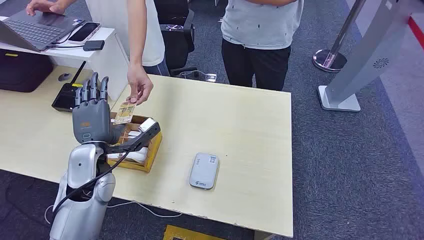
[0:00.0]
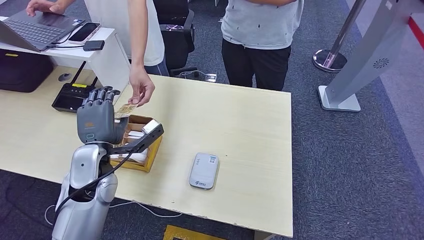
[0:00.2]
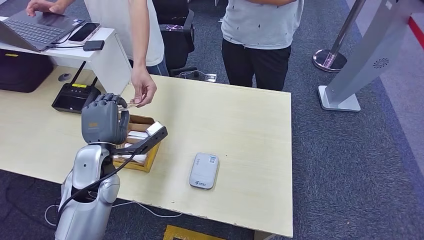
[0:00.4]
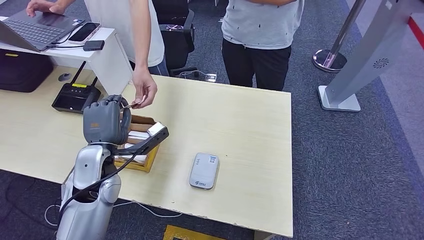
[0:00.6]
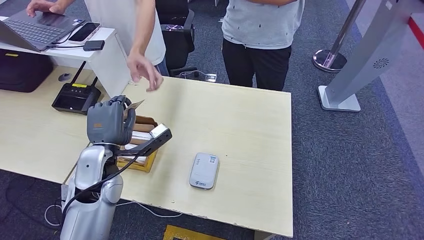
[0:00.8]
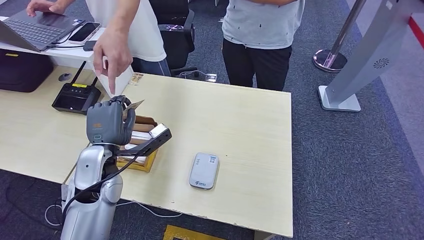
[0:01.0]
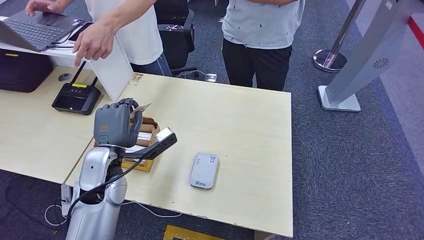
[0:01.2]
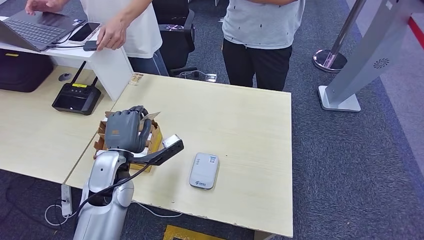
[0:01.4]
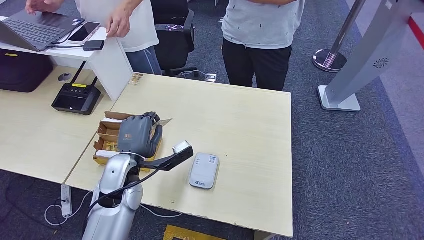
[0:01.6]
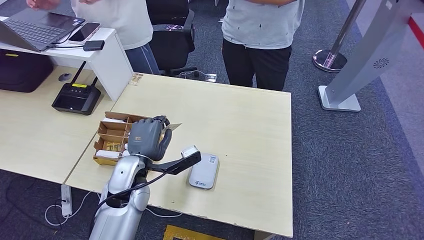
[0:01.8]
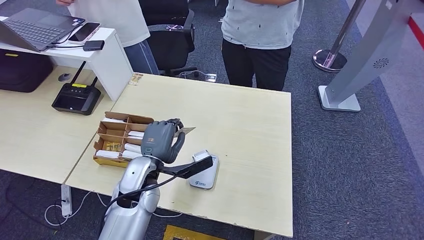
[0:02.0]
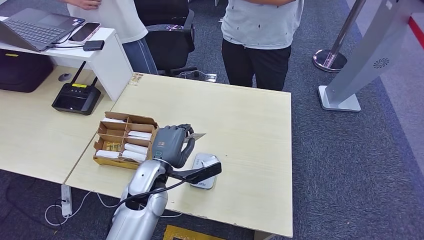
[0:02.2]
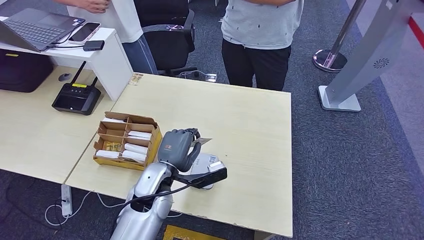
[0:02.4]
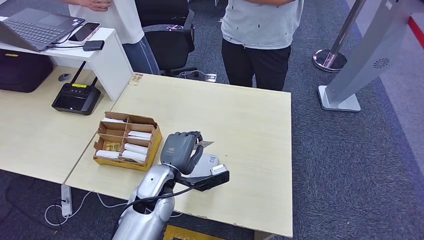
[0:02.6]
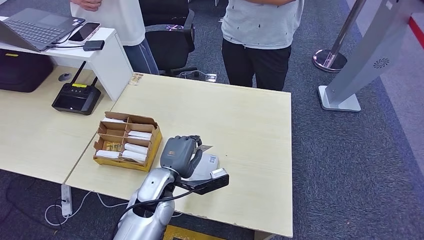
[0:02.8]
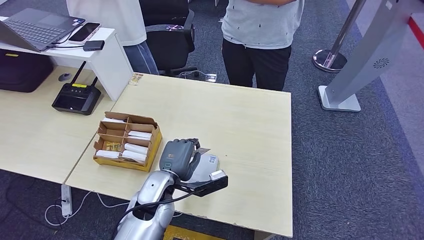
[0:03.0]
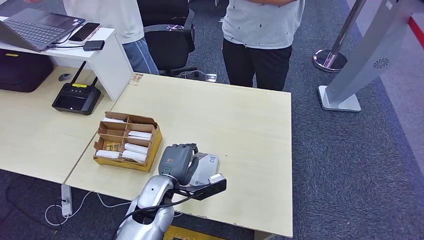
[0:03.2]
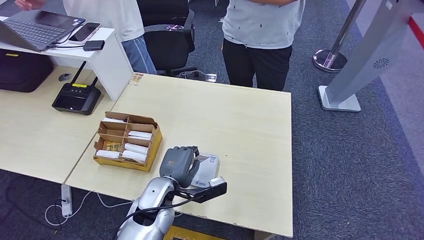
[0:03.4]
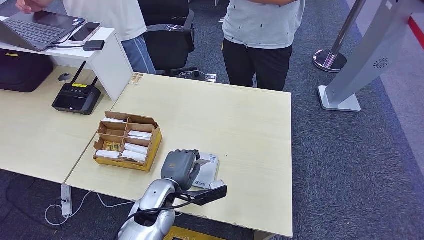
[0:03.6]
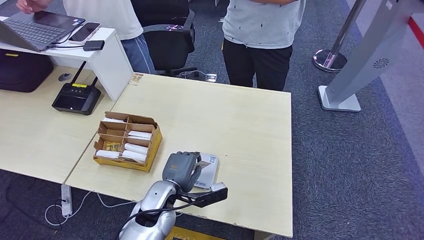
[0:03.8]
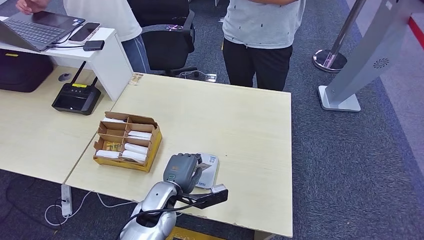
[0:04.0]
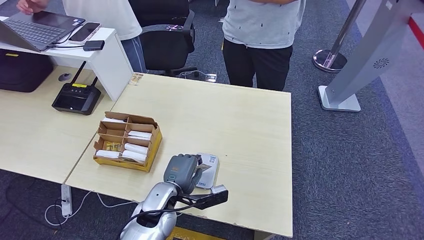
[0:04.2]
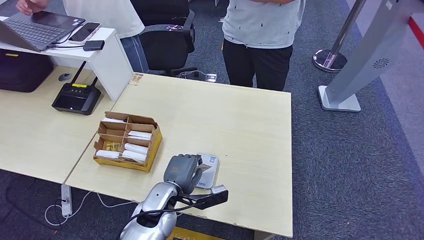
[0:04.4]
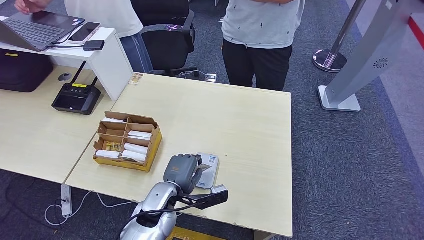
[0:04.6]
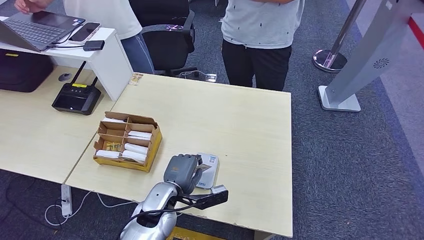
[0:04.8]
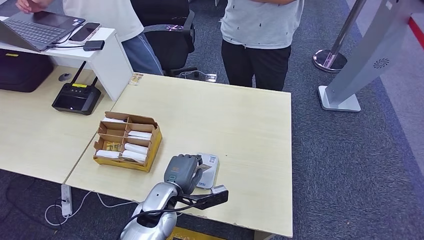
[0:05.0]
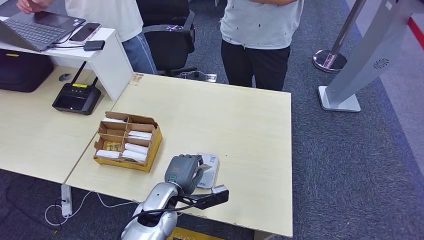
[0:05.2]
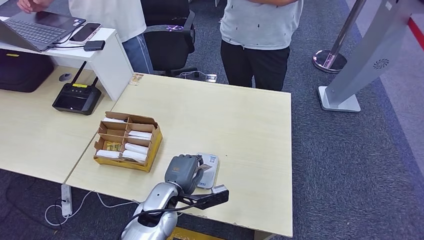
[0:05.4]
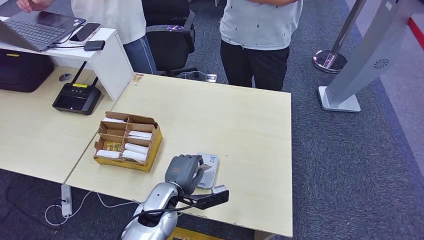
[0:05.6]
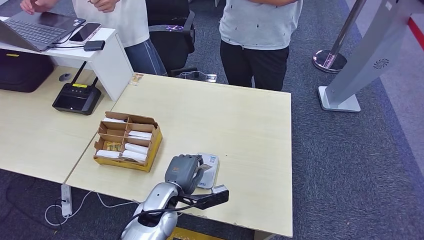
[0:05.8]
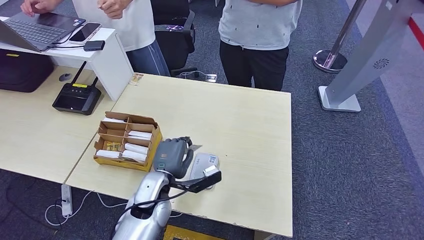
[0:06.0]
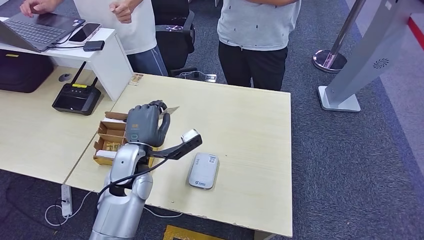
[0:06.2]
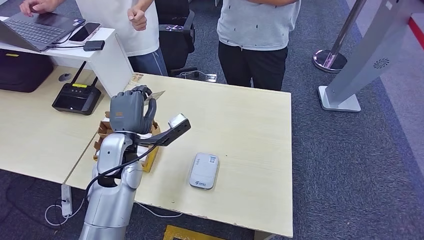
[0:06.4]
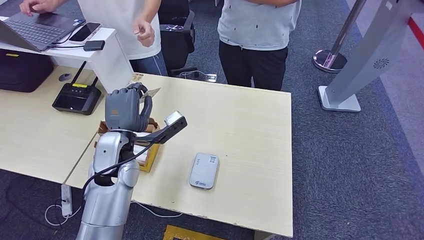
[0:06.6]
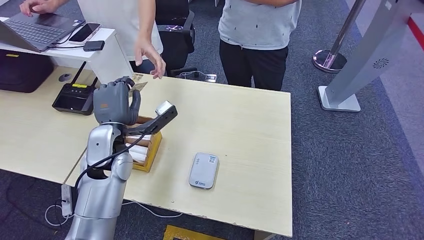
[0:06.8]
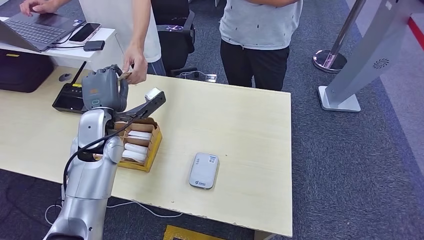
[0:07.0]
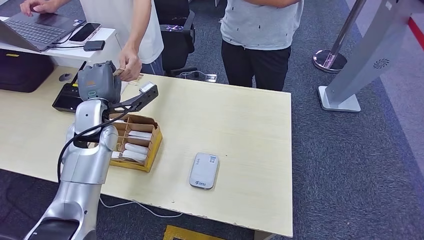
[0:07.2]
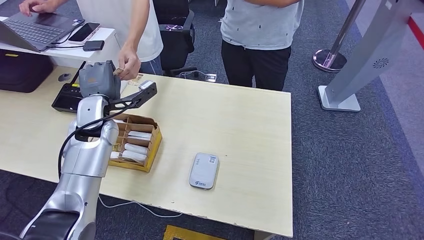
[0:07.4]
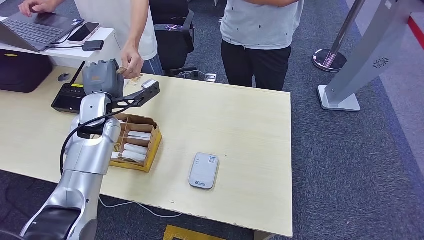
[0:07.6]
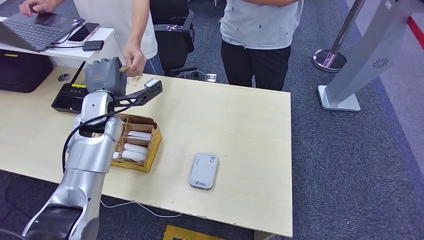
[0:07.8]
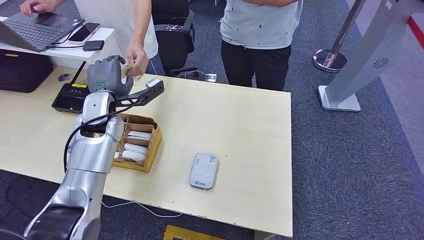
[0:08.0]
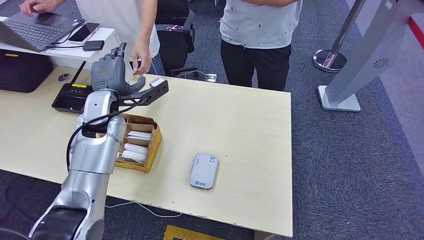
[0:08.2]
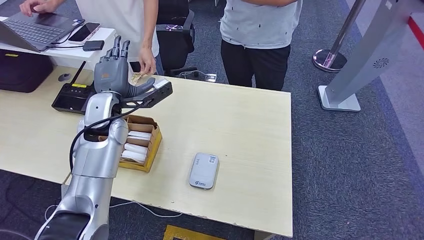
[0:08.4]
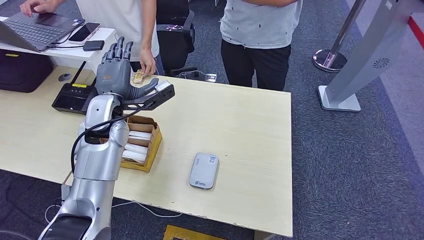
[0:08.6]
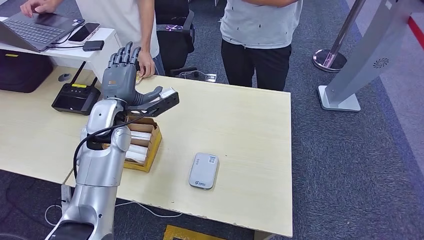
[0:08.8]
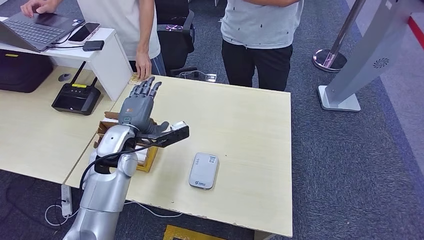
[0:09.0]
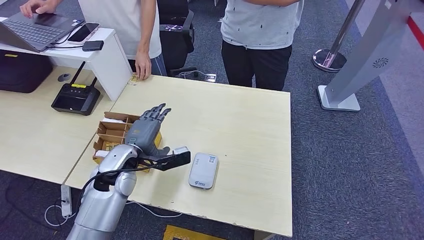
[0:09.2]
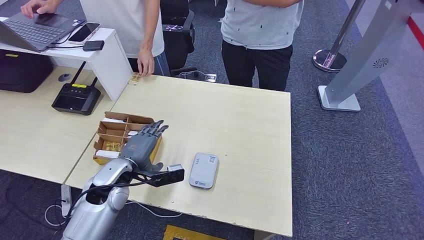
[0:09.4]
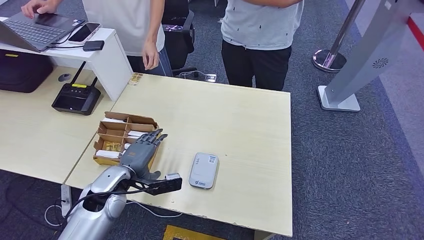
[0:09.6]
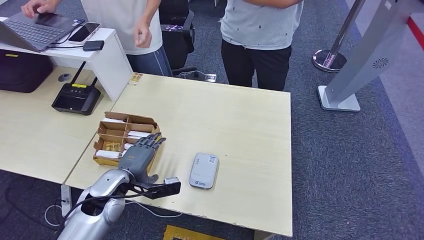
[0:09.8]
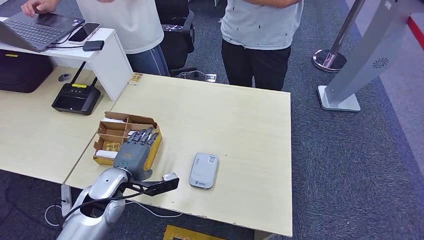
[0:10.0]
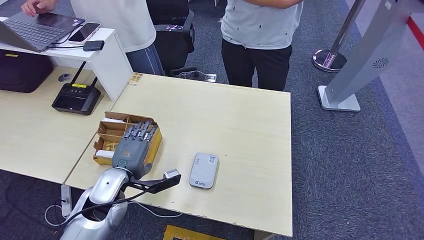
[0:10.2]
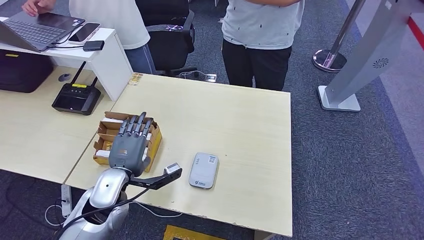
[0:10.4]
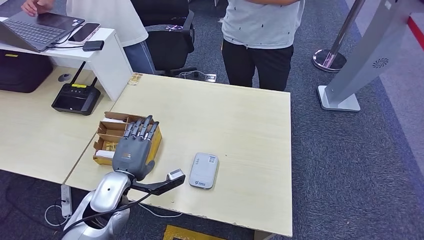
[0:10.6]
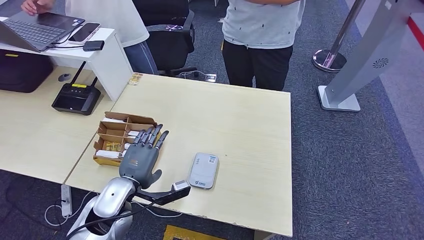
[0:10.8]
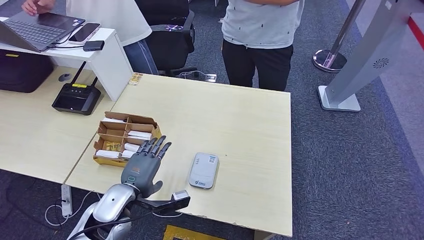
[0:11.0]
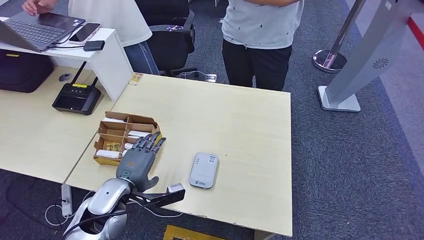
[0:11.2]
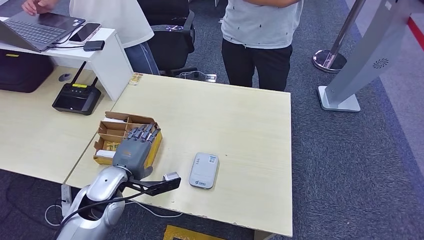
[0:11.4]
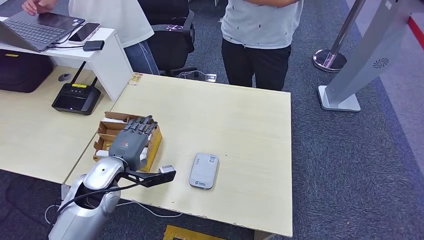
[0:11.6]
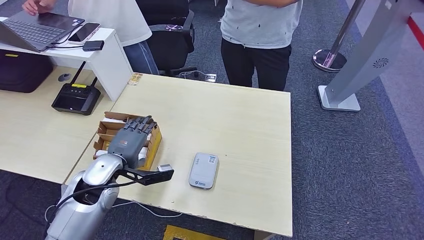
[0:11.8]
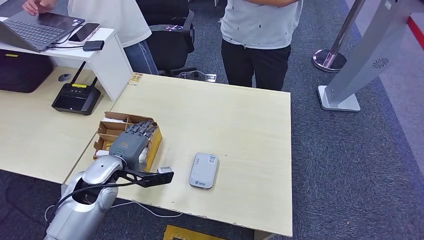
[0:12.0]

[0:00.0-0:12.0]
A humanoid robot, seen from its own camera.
Step, 0:00.0 to 0:00.6: Take the ID card from the person's hand.
Step, 0:00.8 to 0:03.8: Place the ID card on the card reader.
Step, 0:05.0 to 0:08.0: Hand the ID card to the person.
0:01.6 to 0:03.0: The left hand goes about 10 cm to the right.
0:03.0 to 0:06.0: The hands move only a little.
0:06.0 to 0:07.6: The left hand goes approximately 25 cm to the left, upward and forward.
0:07.6 to 0:09.0: The left hand shifts roughly 10 cm to the right and backward.
0:09.0 to 0:10.4: The left hand is displaced backward and downward by about 10 cm.
0:10.4 to 0:12.0: The left hand changes place by roughly 5 cm.

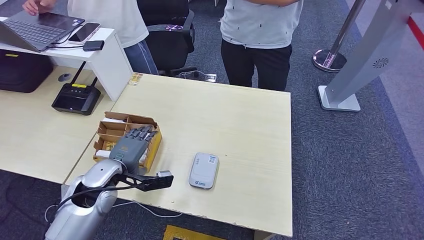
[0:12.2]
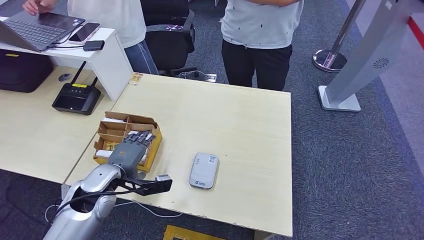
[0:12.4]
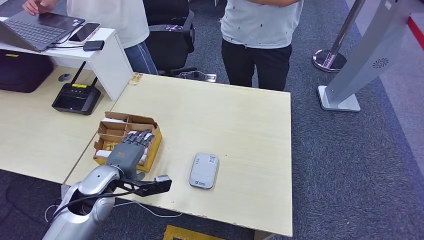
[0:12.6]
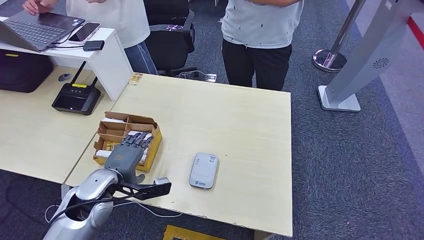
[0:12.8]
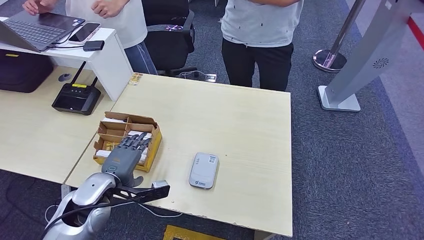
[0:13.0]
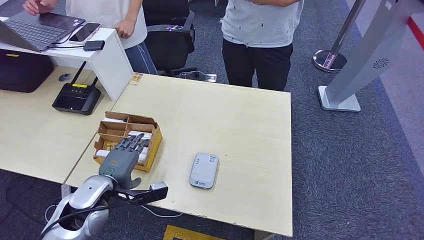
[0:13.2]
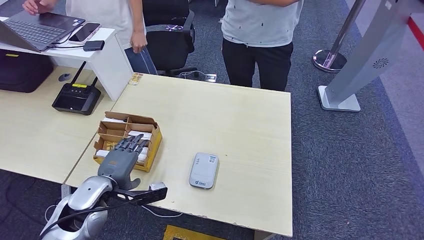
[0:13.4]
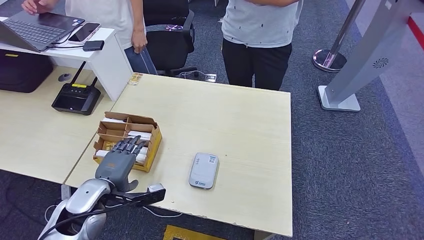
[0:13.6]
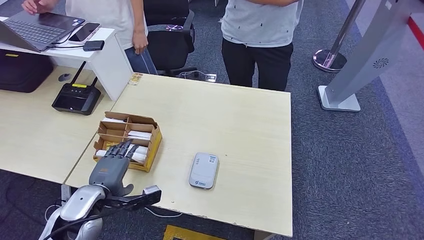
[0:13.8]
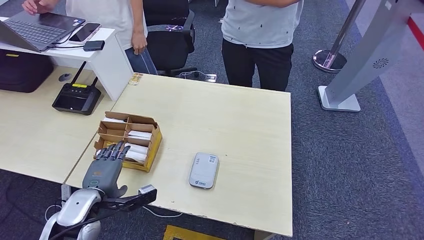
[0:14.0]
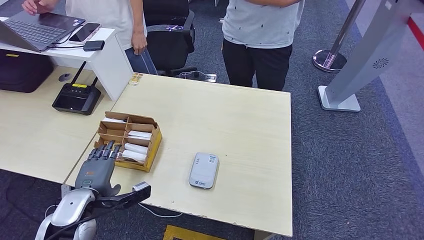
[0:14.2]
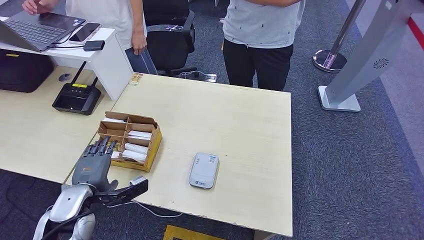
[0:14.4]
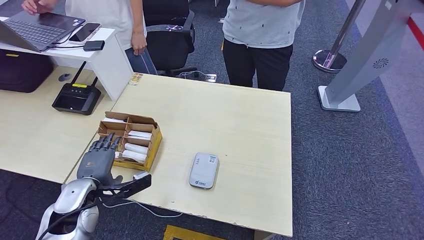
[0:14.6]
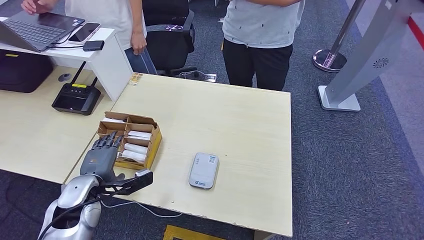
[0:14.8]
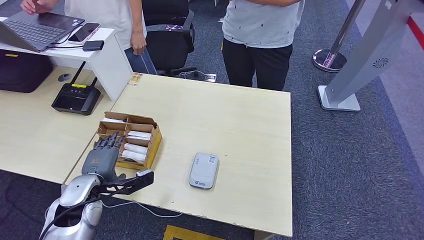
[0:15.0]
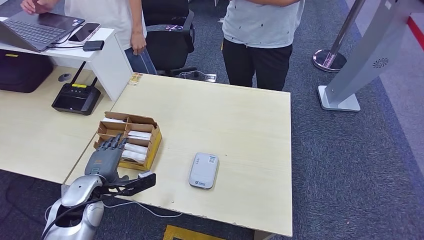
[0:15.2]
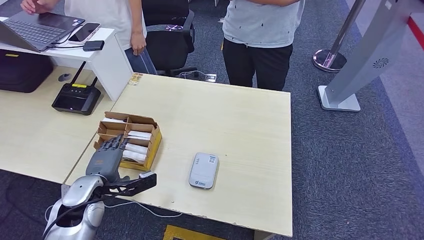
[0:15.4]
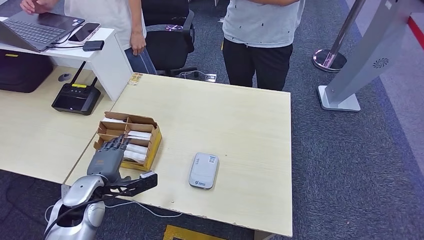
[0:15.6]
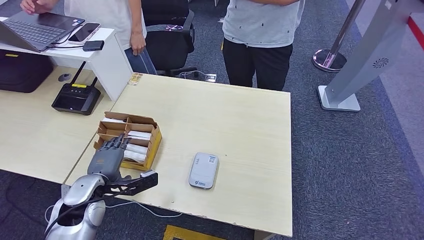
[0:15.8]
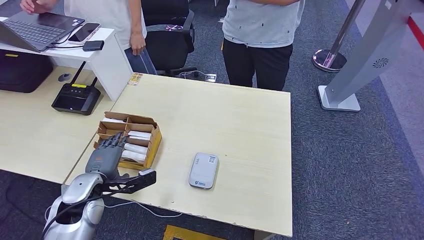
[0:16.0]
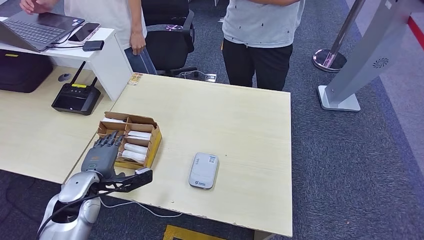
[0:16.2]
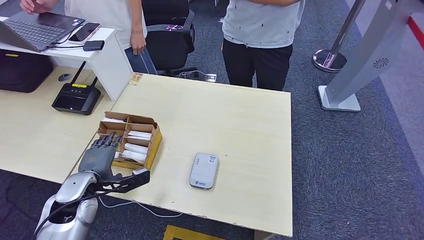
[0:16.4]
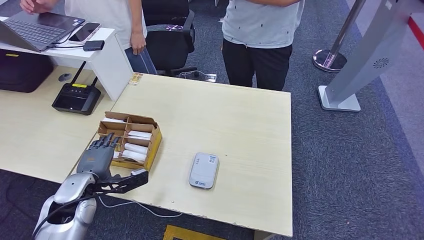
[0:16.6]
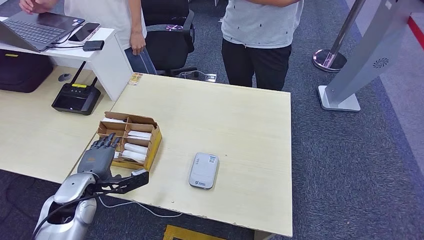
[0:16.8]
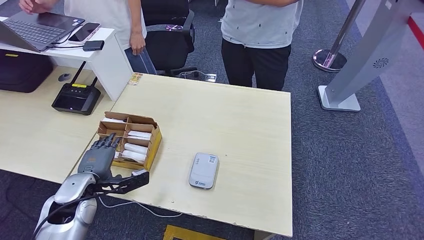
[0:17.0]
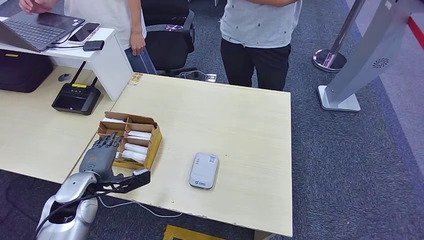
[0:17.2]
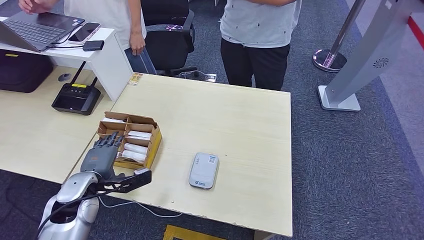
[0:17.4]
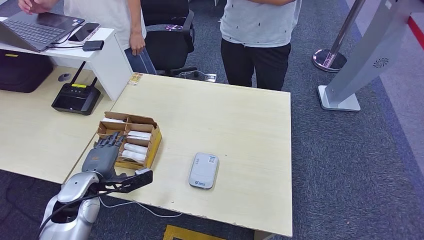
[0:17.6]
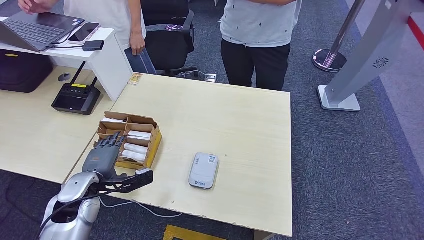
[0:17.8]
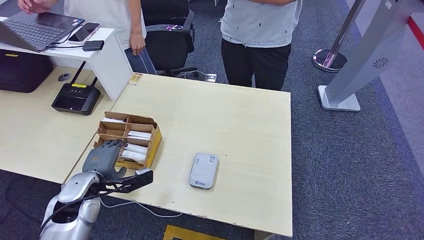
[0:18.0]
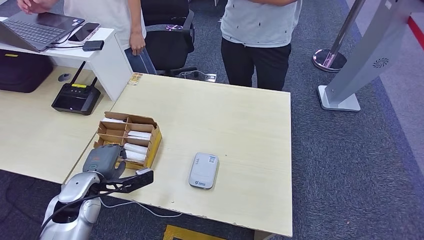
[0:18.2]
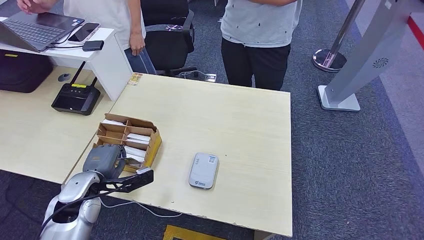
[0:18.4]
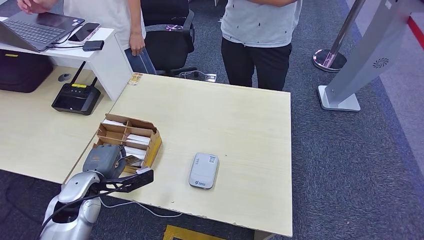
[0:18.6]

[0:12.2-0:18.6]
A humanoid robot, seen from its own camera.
0:12.2 to 0:13.8: The left hand is displaced backward by about 5 cm.
0:13.8 to 0:17.0: The hands make only small movements.
0:17.0 to 0:18.6: Both hands stay about where they are.
